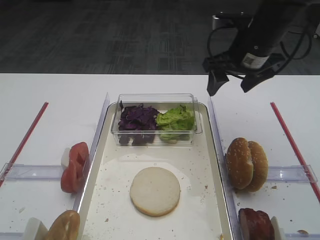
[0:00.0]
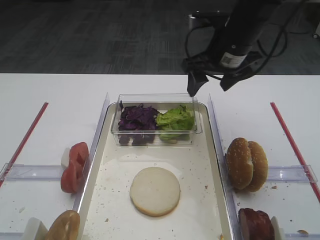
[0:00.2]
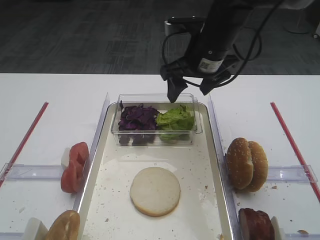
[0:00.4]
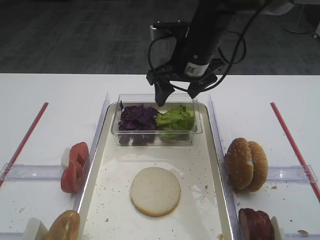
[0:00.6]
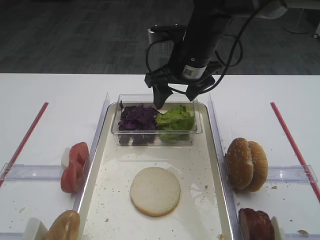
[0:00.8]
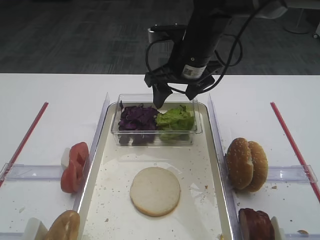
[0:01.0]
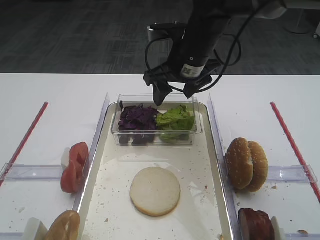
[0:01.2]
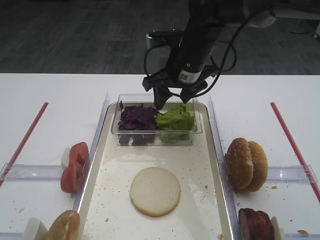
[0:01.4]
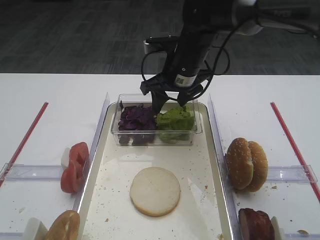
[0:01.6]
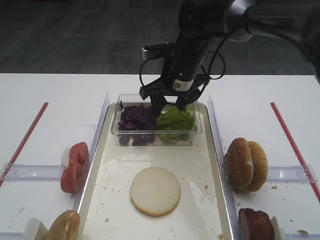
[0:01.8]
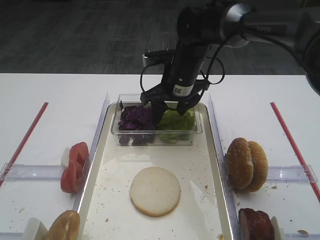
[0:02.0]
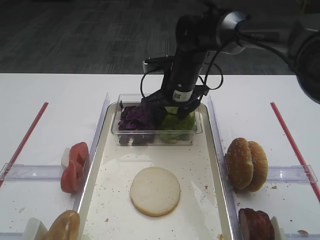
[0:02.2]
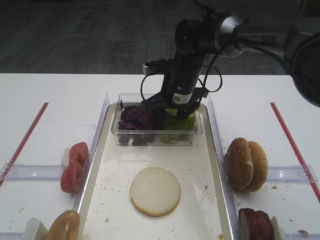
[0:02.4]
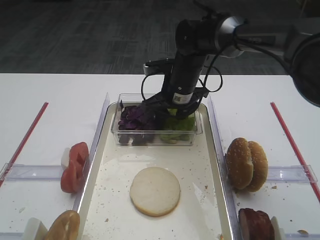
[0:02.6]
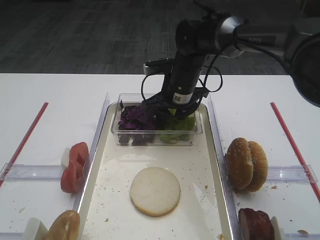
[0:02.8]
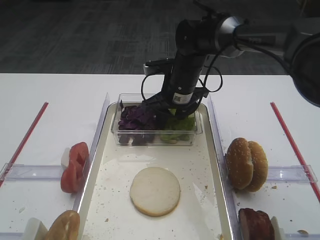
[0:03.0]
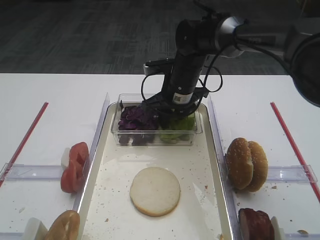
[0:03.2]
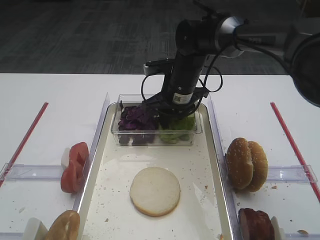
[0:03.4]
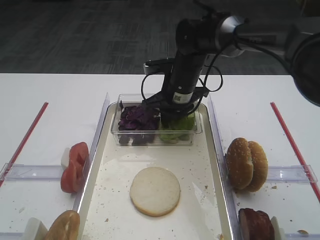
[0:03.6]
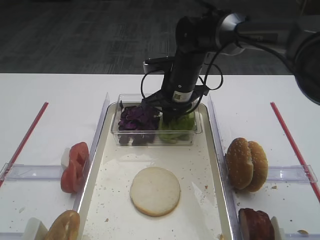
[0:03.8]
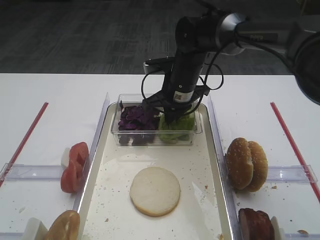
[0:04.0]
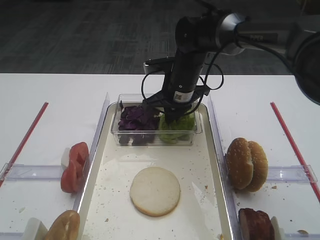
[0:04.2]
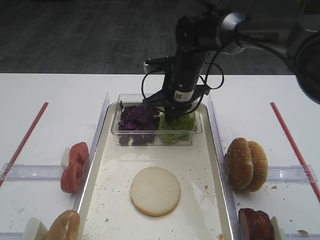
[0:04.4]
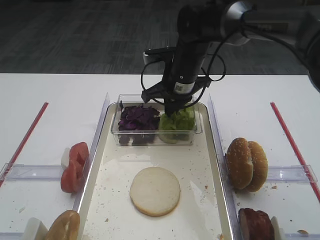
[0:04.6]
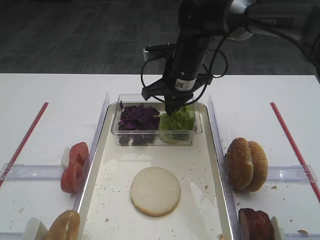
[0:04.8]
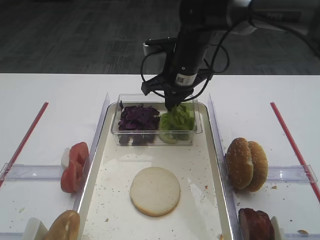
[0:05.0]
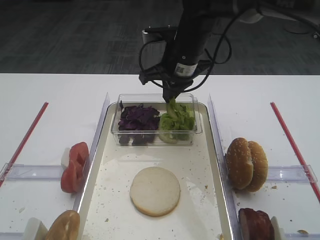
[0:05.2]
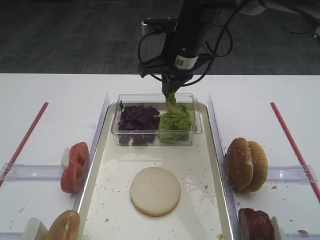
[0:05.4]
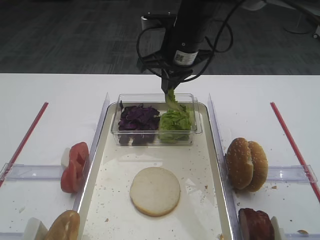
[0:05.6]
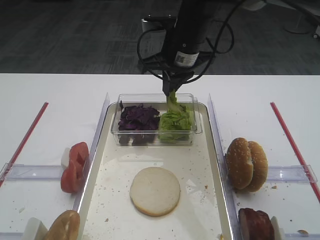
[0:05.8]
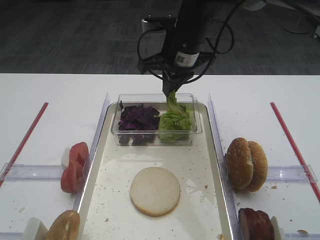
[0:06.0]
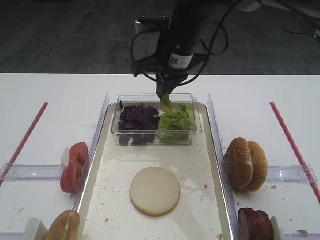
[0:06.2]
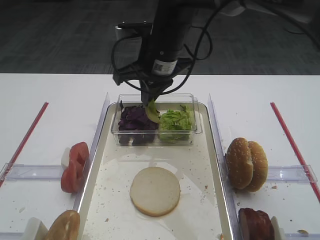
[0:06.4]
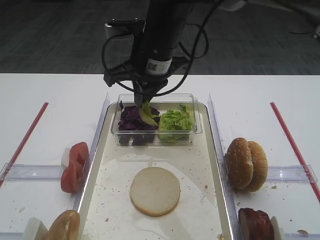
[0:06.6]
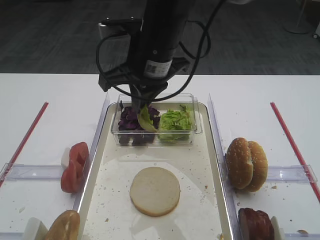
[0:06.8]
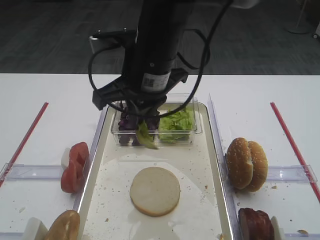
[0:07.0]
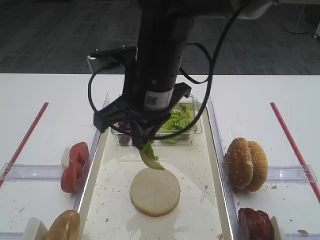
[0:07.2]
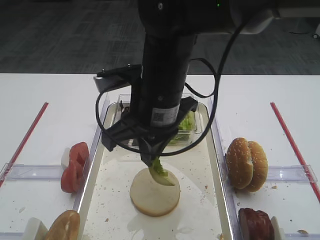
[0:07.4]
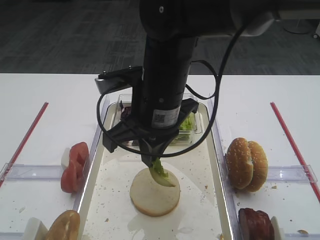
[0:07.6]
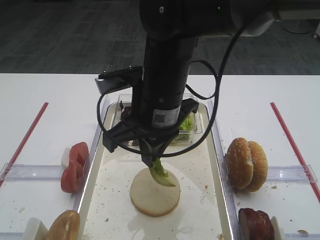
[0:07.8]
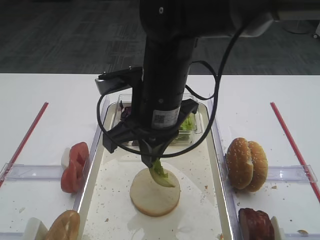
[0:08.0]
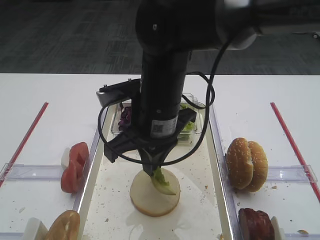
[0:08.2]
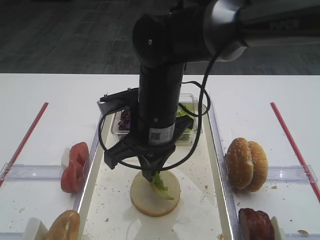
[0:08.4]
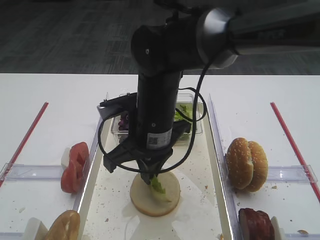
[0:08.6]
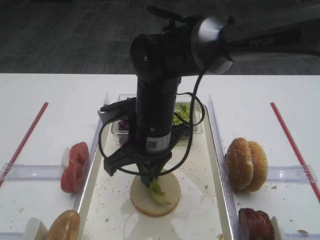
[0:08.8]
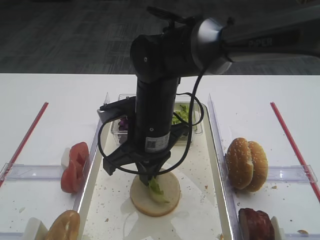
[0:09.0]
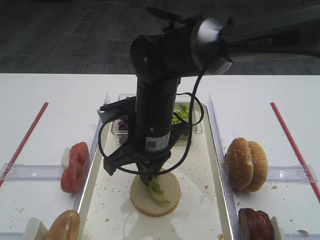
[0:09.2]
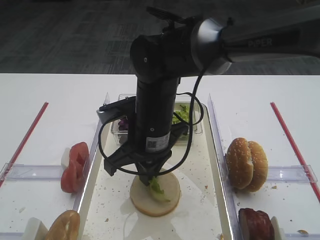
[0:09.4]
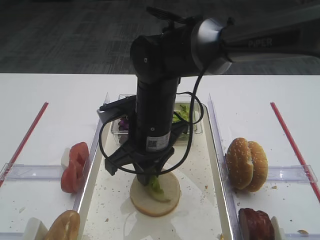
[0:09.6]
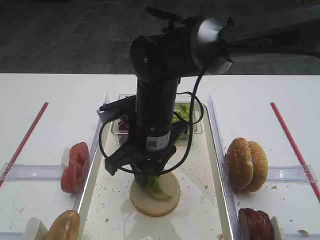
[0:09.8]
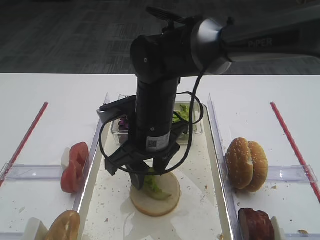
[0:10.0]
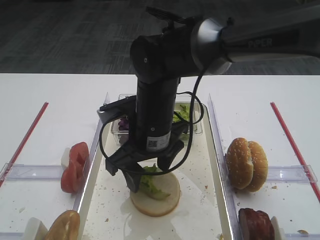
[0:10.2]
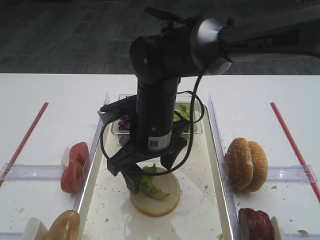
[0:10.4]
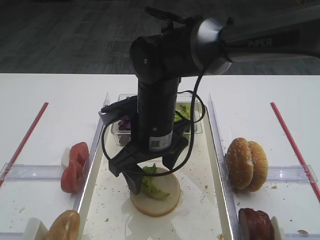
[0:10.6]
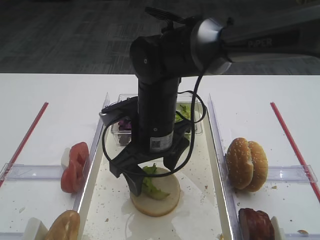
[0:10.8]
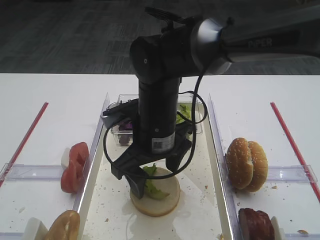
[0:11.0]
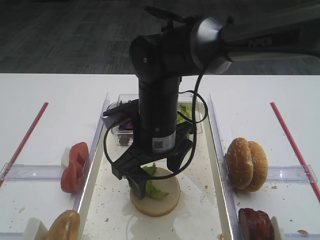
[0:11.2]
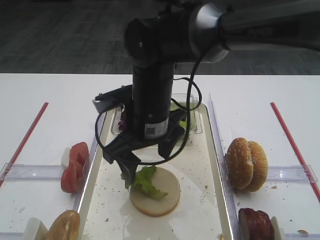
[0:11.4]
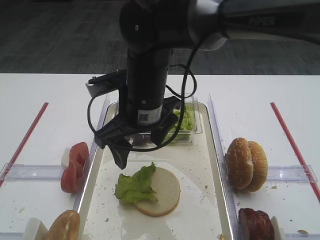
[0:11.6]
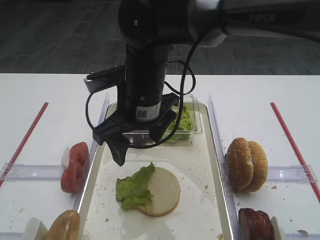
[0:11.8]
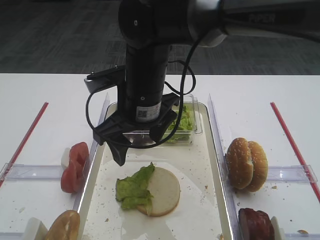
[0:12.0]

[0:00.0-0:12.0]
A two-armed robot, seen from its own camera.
Step, 0:00.0 to 0:05.8: Pick up the lettuce leaf with the right gripper.
Step, 0:06.2 to 0:11.6: Place the lettuce leaf on the bread slice with the right gripper.
0:00.0 to 0:01.6: The right gripper moves to the left, roughly 10 cm.
0:01.6 to 0:03.0: The right gripper is displaced downward by roughly 5 cm.
0:03.0 to 0:04.4: The right gripper closes.
0:04.4 to 0:06.0: The right gripper moves upward, about 10 cm.
0:06.0 to 0:07.6: The right gripper travels backward by some 15 cm.
0:07.6 to 0:09.0: The right gripper is displaced downward by roughly 5 cm.
0:09.0 to 0:10.4: The right gripper opens up.
0:10.4 to 0:12.0: The right gripper shifts by roughly 5 cm.

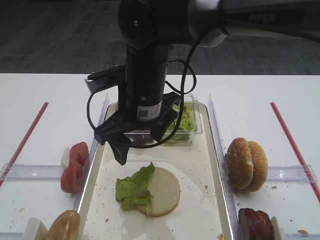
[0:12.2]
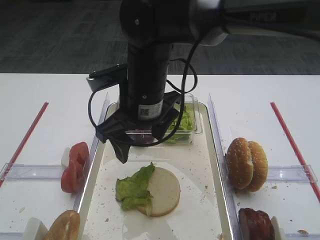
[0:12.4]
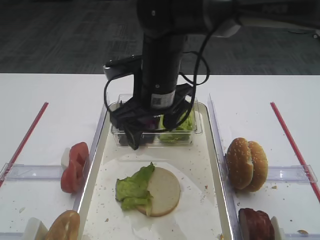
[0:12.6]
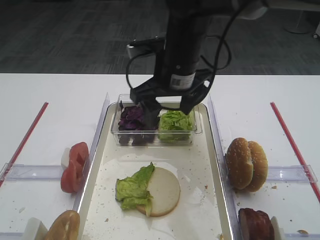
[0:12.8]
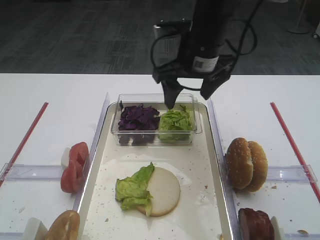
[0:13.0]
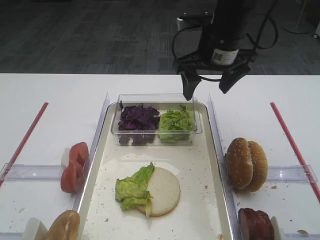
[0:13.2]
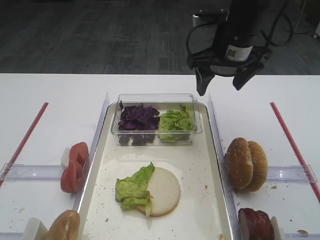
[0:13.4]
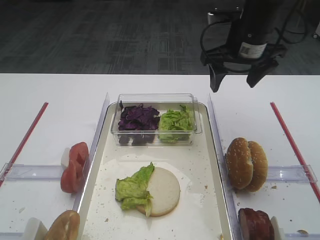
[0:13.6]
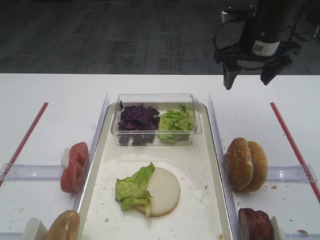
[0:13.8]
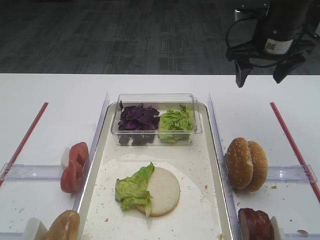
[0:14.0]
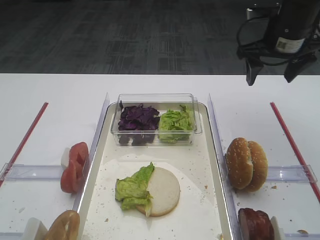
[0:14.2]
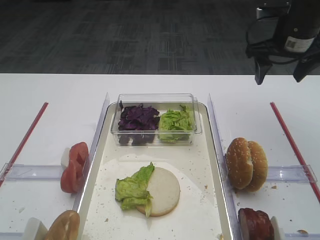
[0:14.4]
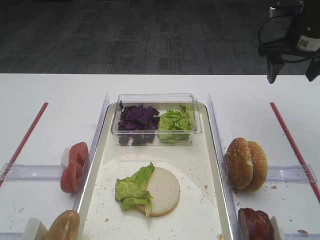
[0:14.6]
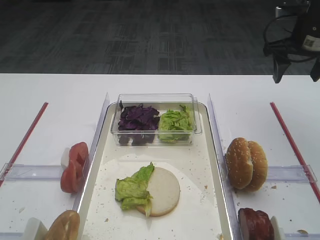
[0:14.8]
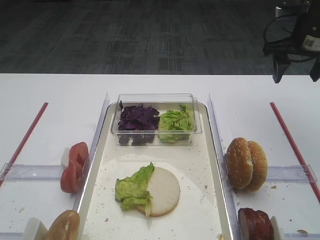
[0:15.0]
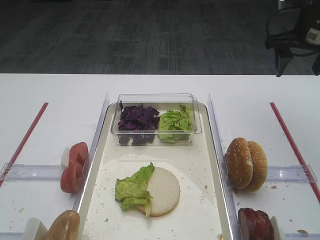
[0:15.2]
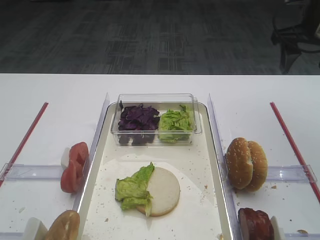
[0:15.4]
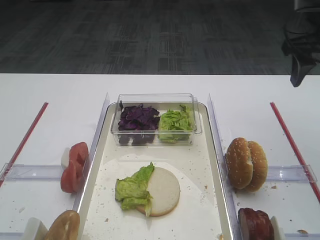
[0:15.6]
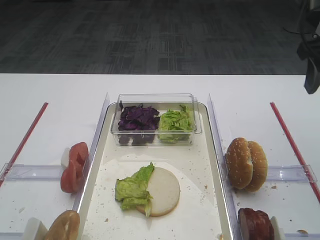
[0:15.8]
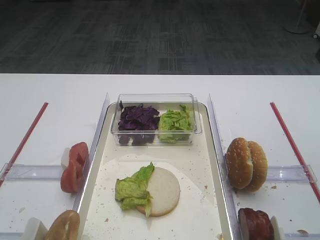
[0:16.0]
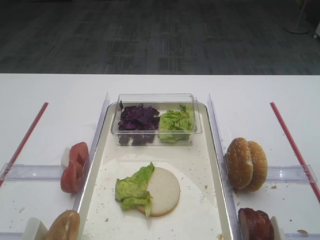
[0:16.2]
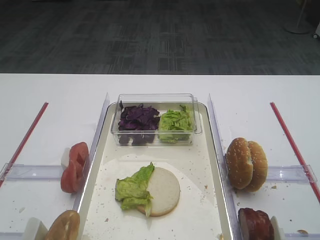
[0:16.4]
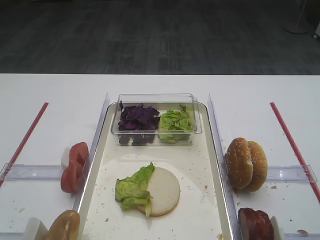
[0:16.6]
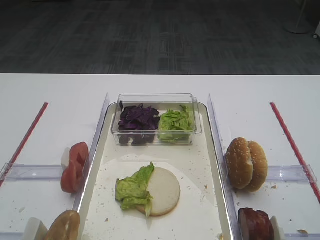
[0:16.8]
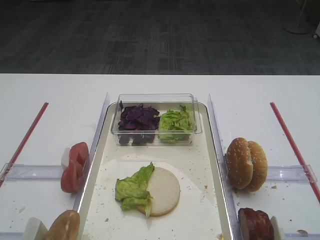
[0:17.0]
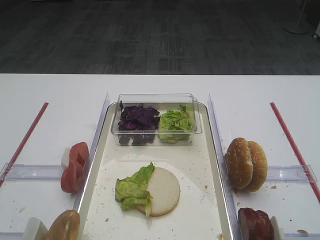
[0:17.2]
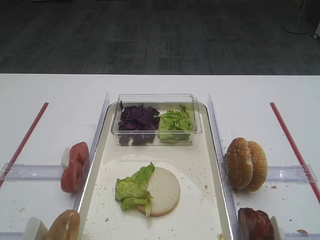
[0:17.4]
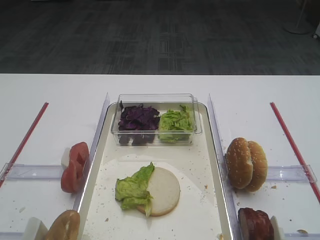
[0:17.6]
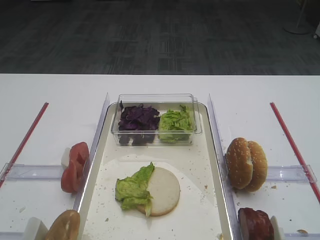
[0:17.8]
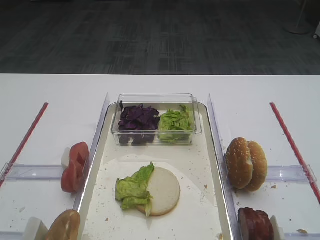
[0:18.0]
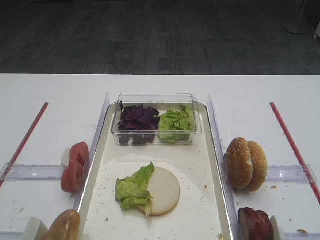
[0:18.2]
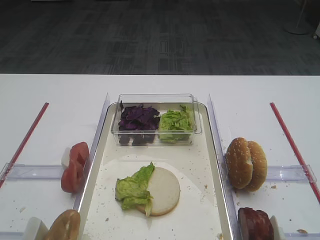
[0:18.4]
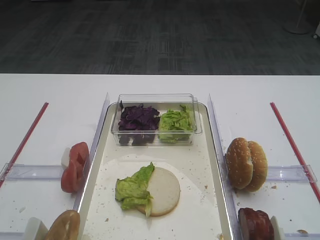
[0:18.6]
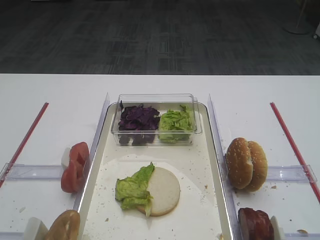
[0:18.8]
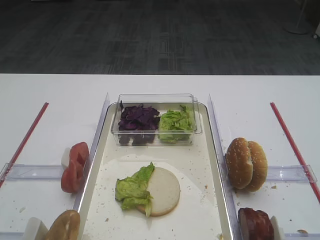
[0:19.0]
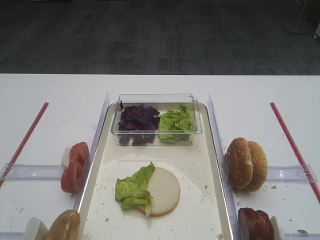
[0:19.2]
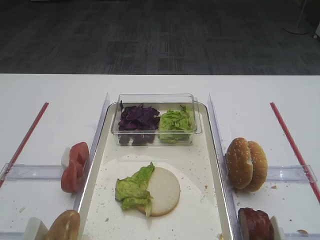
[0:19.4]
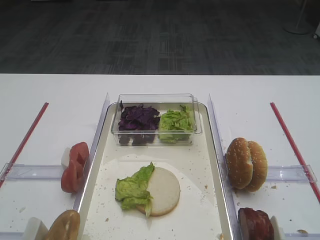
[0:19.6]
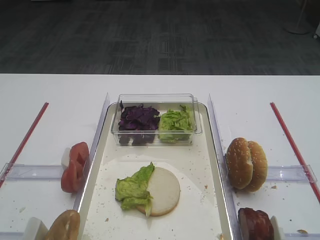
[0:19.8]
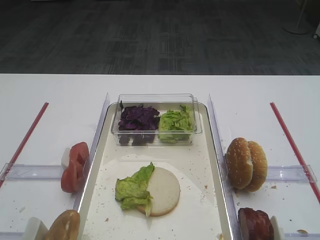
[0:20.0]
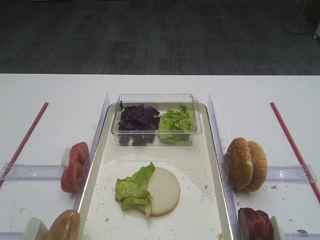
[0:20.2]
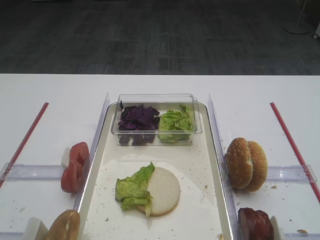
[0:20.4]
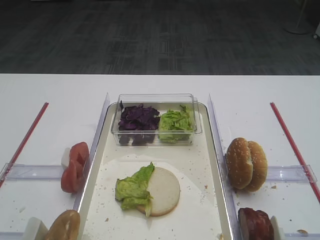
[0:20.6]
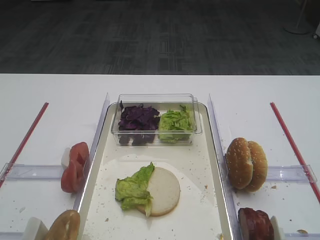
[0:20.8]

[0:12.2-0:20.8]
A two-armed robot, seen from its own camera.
0:12.2 to 0:13.6: The right gripper heads to the right and forward, covering about 20 cm.
0:13.6 to 0:15.0: The right gripper goes about 10 cm to the right.
0:15.0 to 0:16.6: The right gripper is displaced backward by approximately 30 cm.
0:18.0 to 0:20.8: Neither gripper changes place.

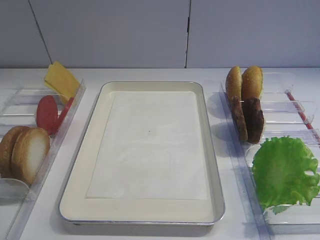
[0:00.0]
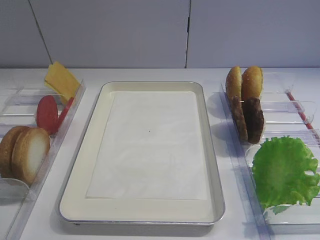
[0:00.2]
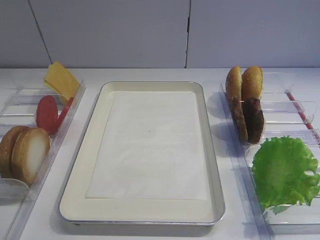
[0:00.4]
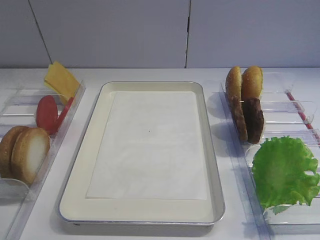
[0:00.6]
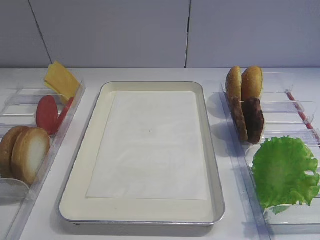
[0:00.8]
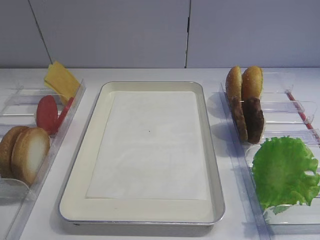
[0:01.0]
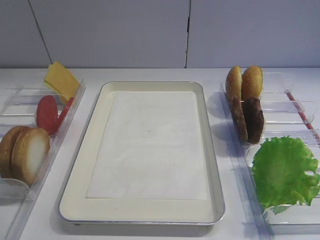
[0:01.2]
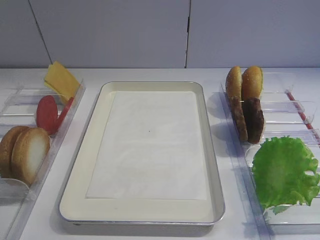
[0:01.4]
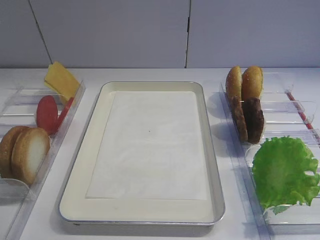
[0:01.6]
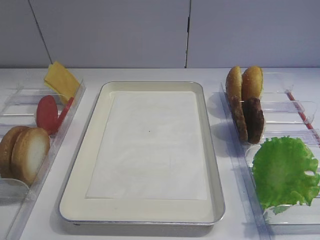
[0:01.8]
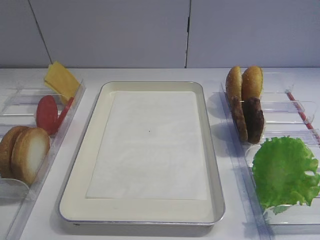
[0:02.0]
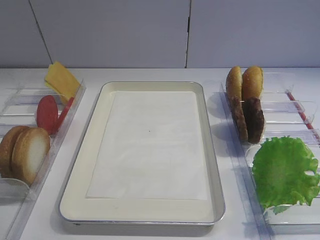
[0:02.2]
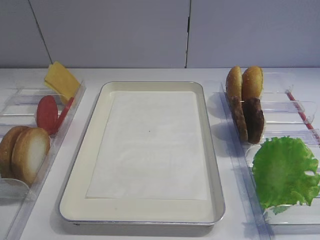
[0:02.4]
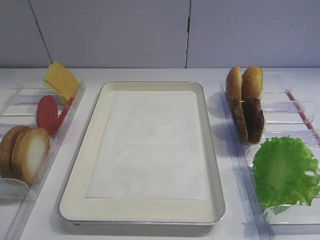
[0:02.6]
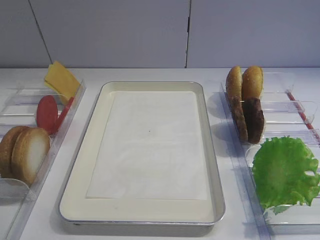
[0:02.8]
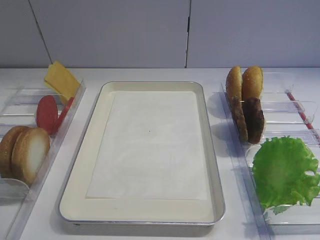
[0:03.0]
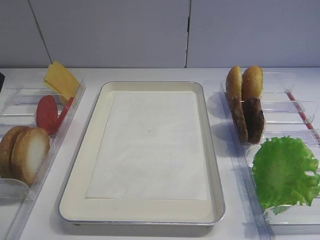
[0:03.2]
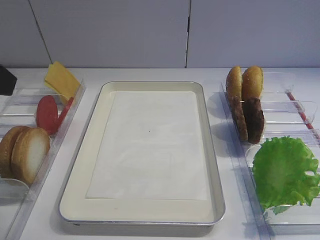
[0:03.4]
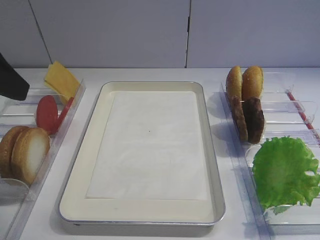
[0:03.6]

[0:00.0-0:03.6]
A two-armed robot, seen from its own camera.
0:01.8 to 0:03.6: The left gripper is displaced forward by about 20 cm.
